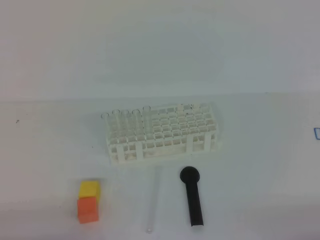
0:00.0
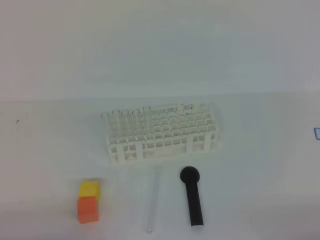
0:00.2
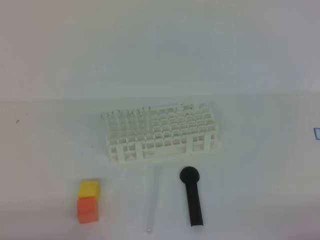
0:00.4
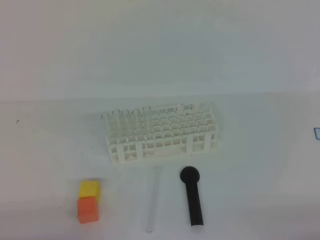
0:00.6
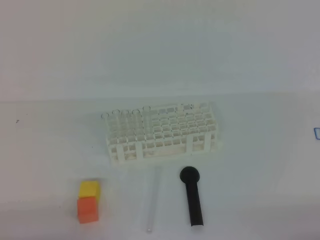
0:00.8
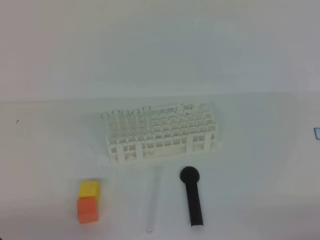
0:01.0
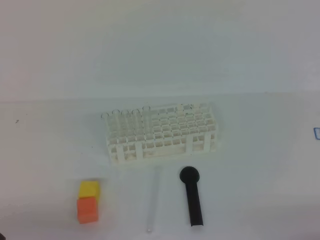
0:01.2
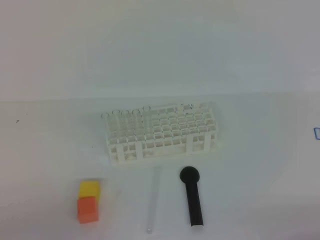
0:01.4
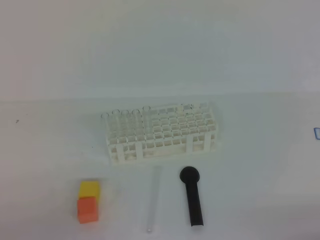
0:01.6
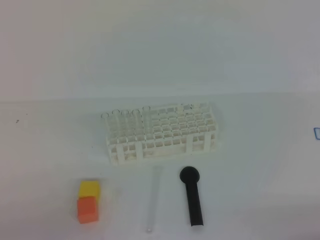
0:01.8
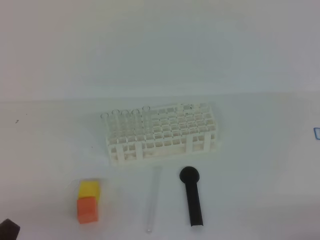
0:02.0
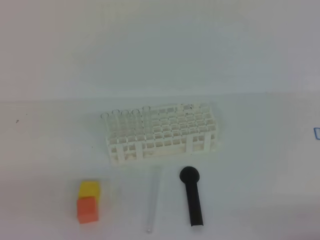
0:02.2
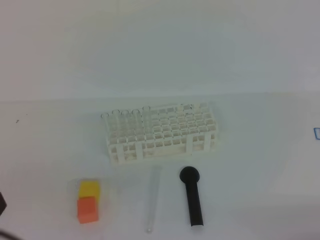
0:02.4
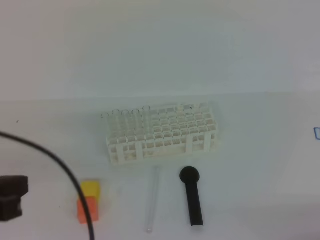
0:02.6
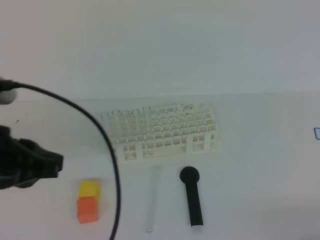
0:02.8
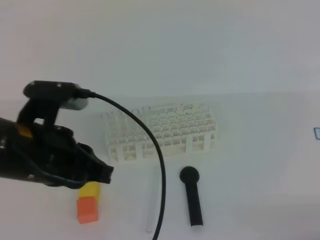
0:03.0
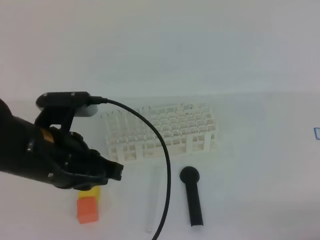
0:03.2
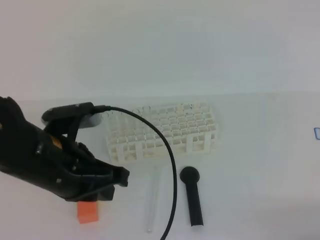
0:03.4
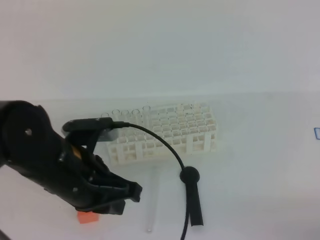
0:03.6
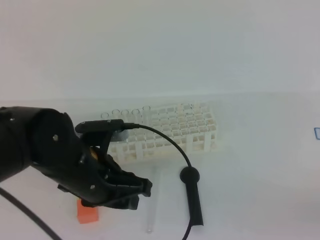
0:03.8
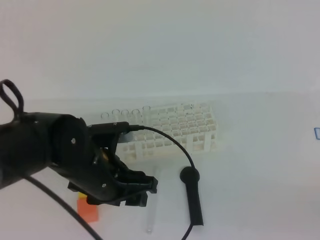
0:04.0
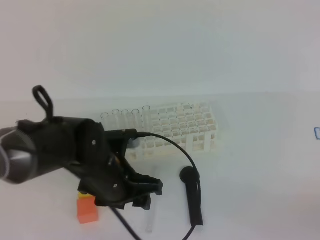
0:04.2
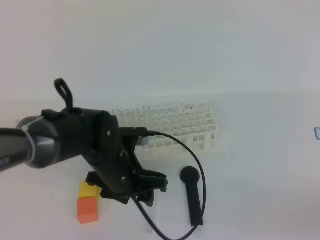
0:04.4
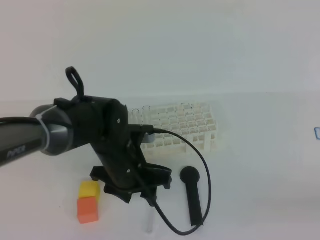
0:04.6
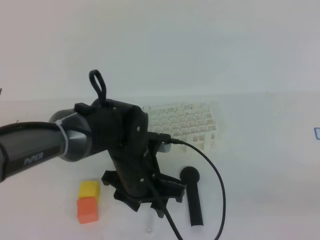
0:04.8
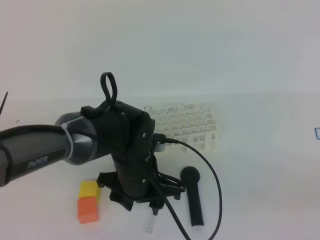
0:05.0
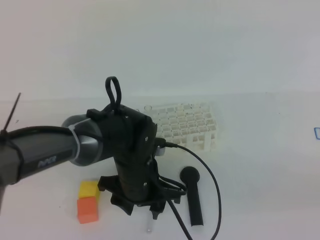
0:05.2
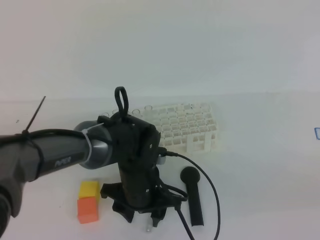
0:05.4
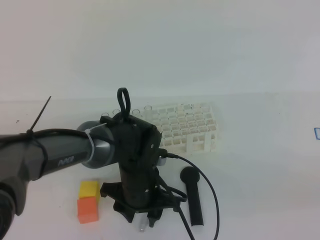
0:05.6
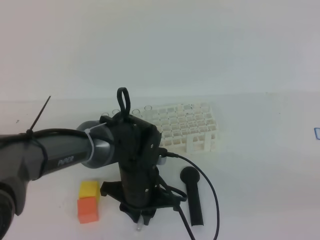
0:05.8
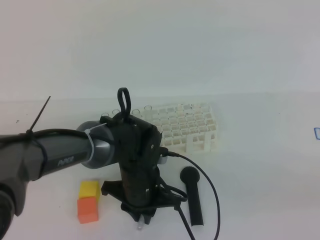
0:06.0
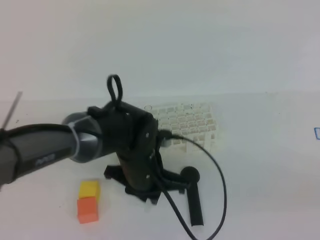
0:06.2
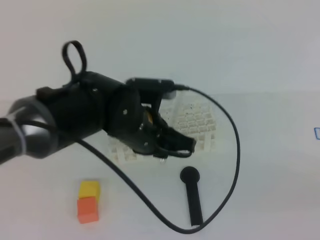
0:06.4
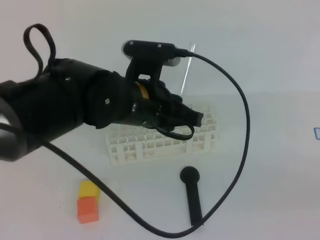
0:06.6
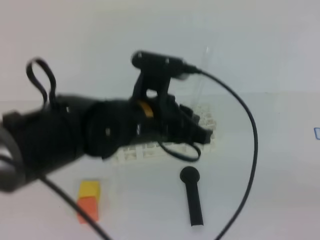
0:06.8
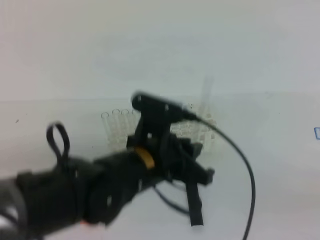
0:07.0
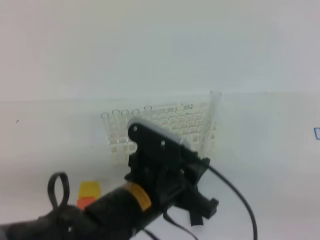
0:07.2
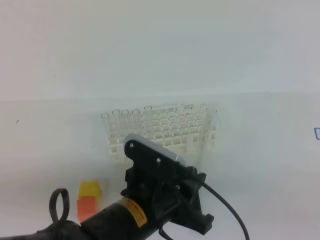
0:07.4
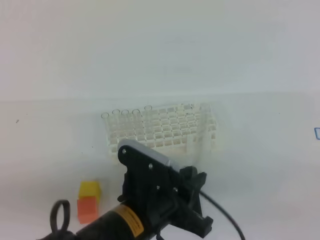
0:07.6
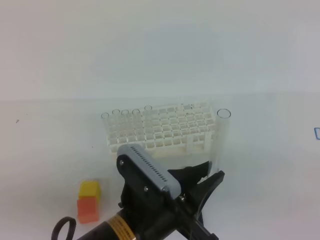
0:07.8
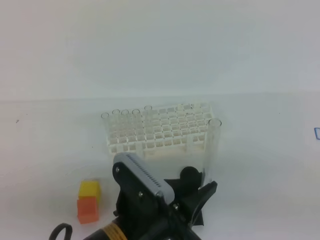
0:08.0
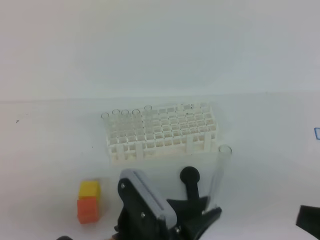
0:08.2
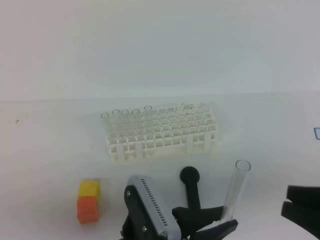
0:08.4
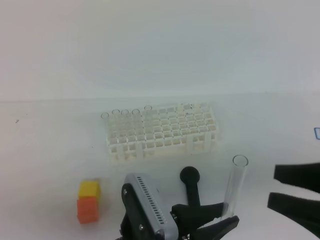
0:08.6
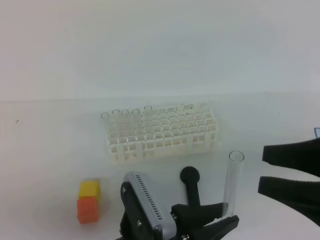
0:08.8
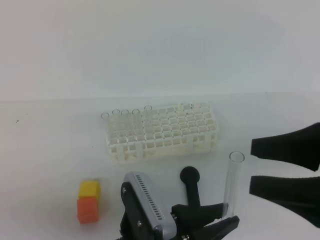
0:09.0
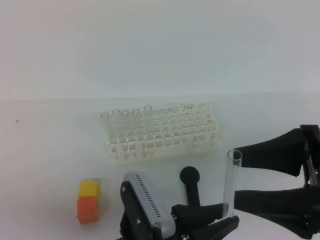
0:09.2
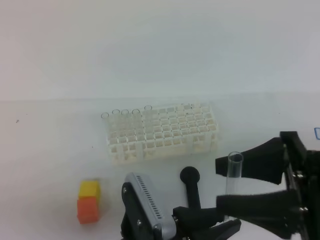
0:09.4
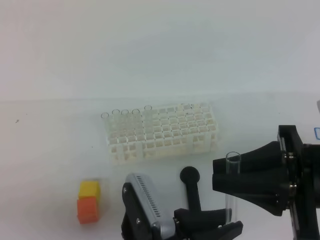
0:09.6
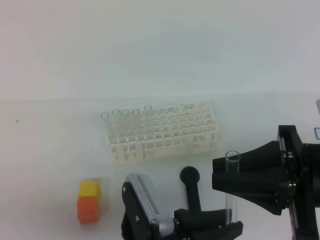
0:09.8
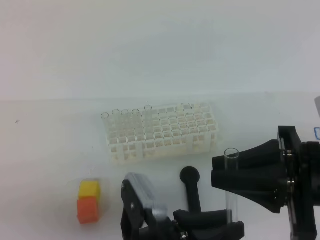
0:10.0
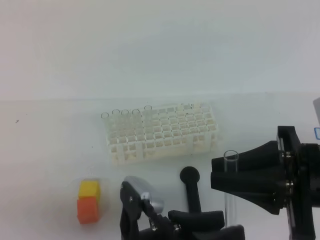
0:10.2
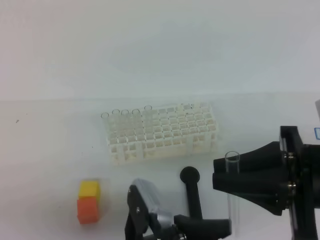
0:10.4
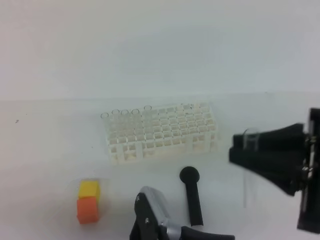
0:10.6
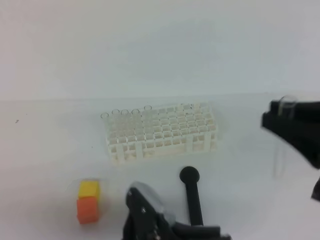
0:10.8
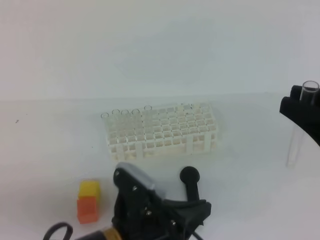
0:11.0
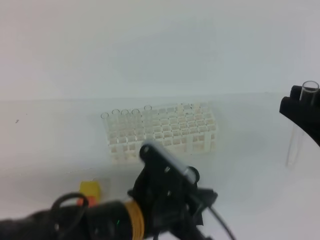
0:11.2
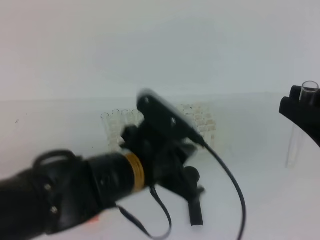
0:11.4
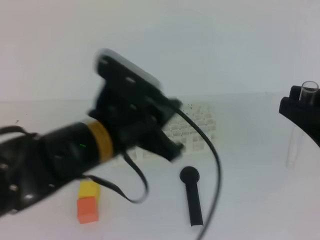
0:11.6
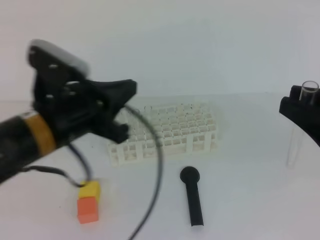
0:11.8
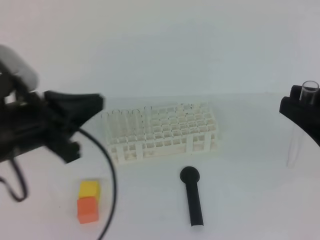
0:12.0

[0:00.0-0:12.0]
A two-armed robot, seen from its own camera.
0:01.6 to 0:03.0: The left gripper travels forward, upward and to the right by approximately 20 cm.
0:03.0 to 0:04.4: The left gripper travels downward, to the right and forward by approximately 20 cm, and opens its fingers.
0:04.4 to 0:06.0: The right gripper shifts some 5 cm upward; the left gripper ends up some 5 cm from where it was, and closes up.
0:06.0 to 0:07.6: The left gripper travels backward and upward by some 15 cm.
0:07.6 to 0:09.0: The left gripper travels backward by about 5 cm, while the right gripper moves forward and to the left, approximately 15 cm, and opens its fingers.
0:09.0 to 0:10.4: The right gripper closes its fingers. Meanwhile the left gripper opens its fingers.
0:10.4 to 0:12.0: The left gripper is displaced to the left, upward and forward by roughly 20 cm, and closes up, while the right gripper moves approximately 5 cm.

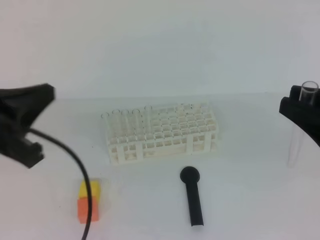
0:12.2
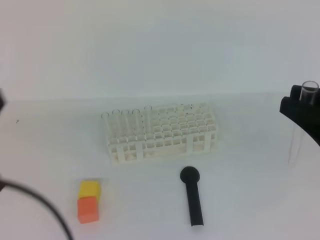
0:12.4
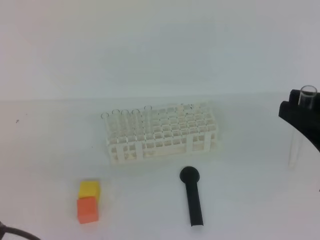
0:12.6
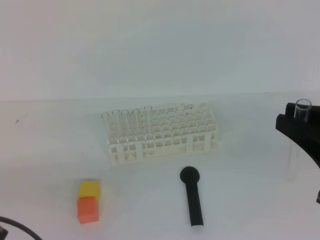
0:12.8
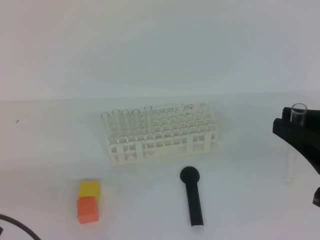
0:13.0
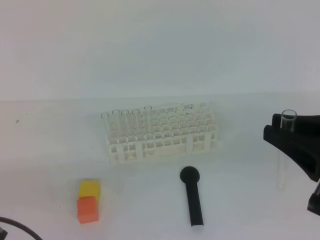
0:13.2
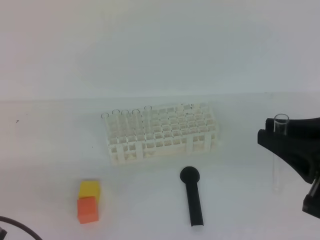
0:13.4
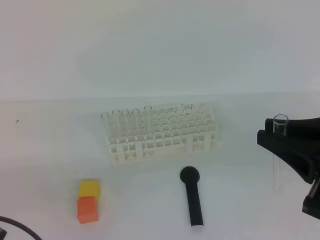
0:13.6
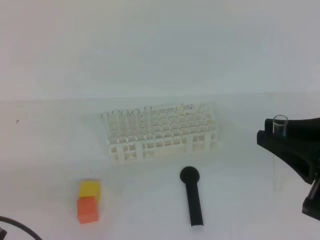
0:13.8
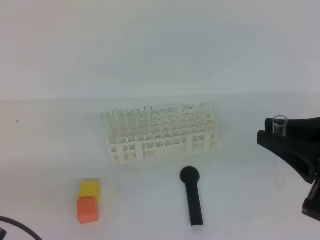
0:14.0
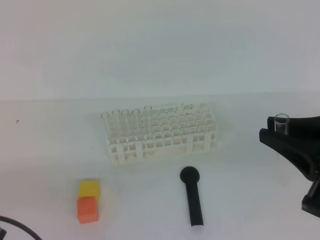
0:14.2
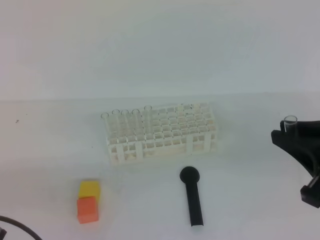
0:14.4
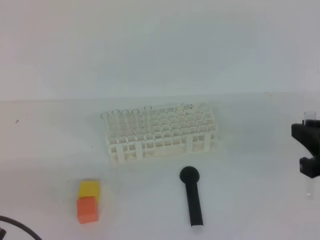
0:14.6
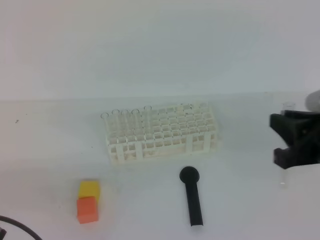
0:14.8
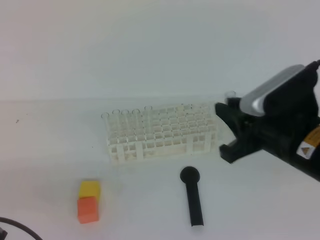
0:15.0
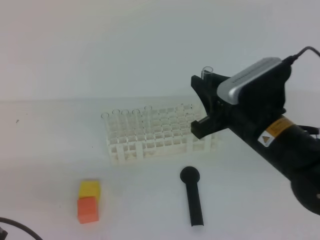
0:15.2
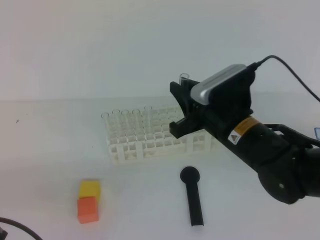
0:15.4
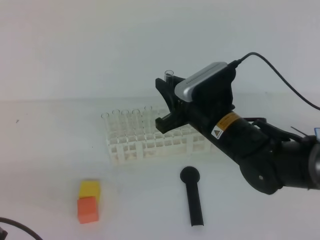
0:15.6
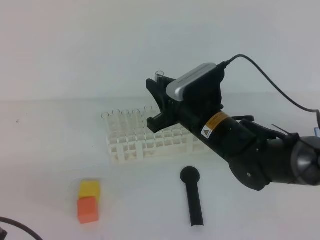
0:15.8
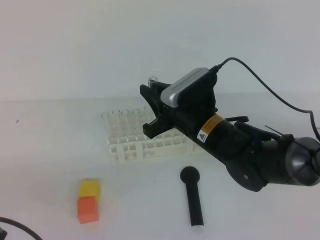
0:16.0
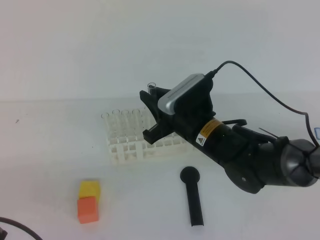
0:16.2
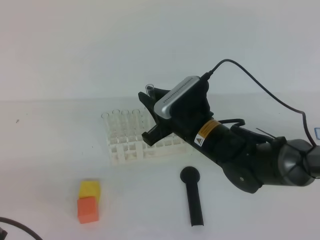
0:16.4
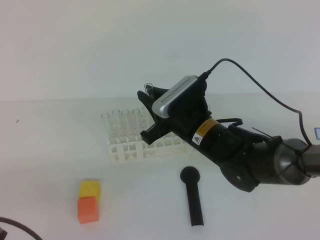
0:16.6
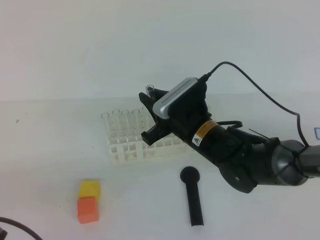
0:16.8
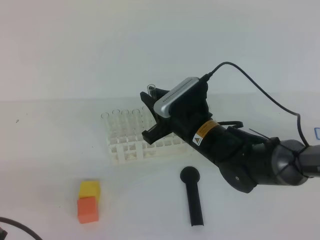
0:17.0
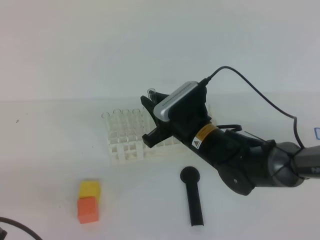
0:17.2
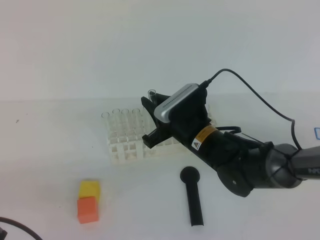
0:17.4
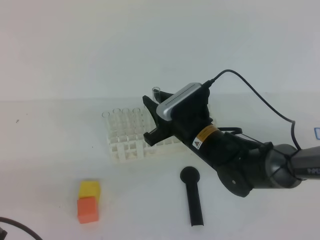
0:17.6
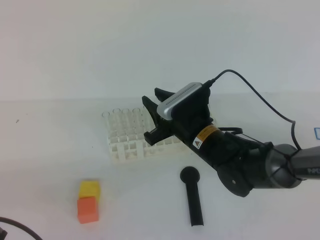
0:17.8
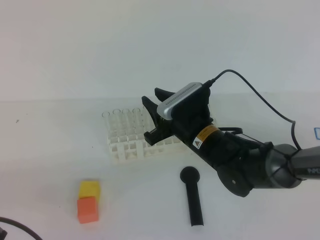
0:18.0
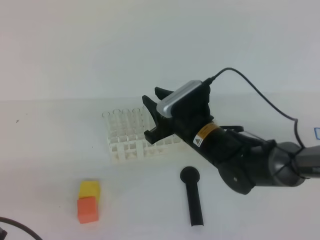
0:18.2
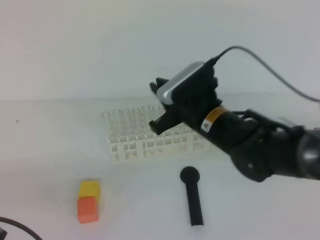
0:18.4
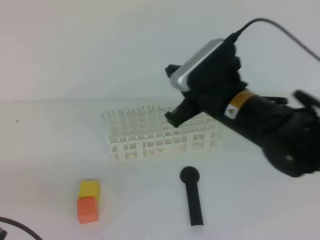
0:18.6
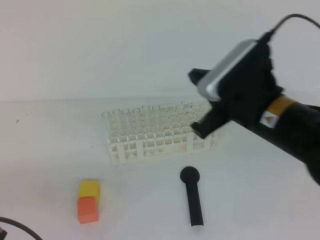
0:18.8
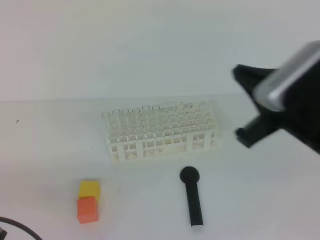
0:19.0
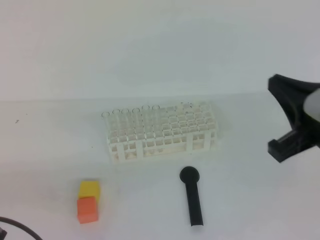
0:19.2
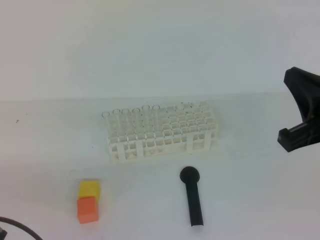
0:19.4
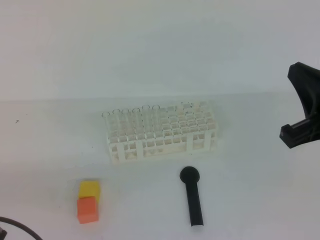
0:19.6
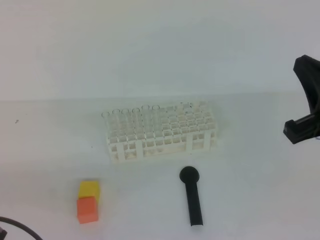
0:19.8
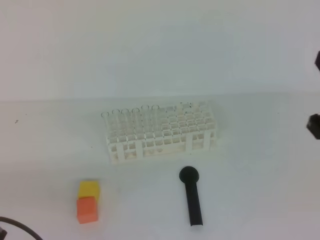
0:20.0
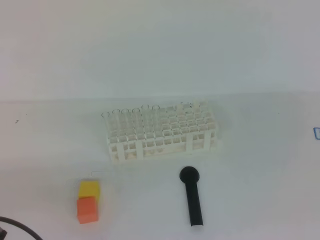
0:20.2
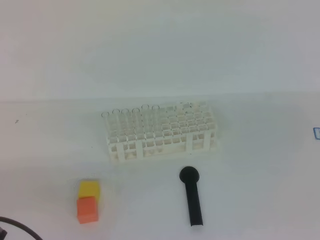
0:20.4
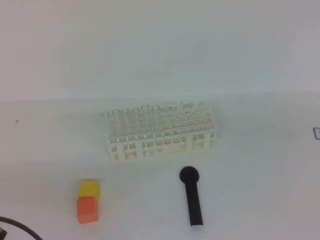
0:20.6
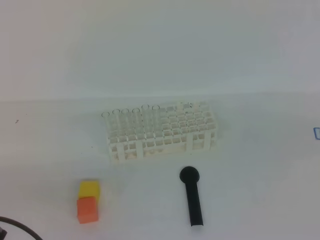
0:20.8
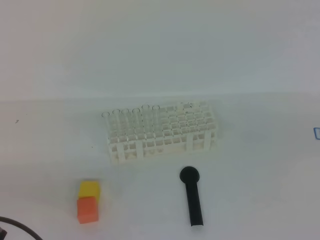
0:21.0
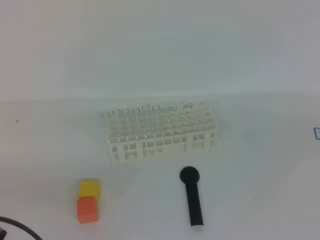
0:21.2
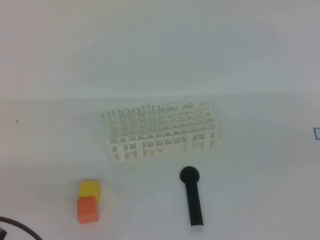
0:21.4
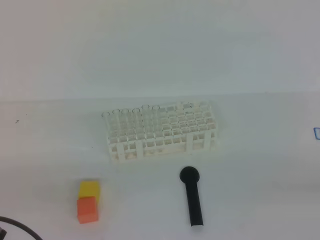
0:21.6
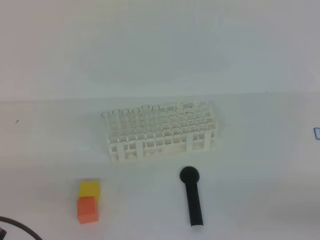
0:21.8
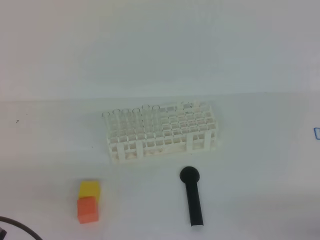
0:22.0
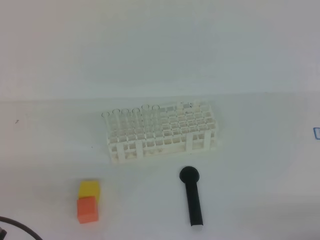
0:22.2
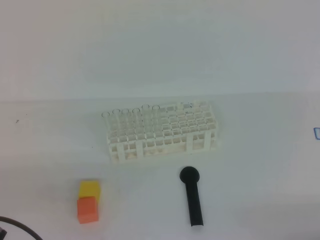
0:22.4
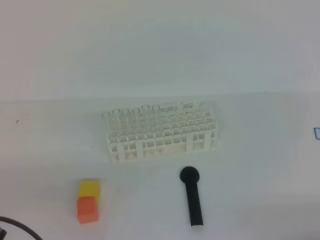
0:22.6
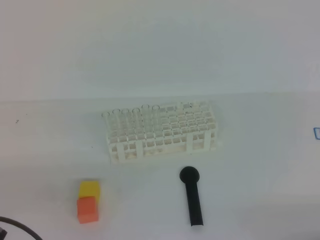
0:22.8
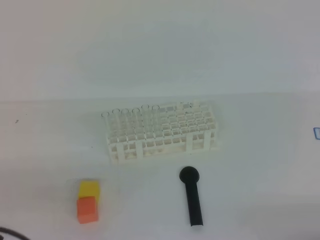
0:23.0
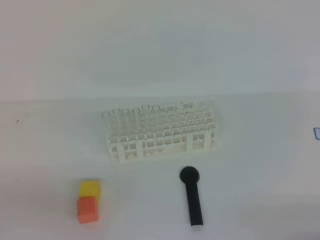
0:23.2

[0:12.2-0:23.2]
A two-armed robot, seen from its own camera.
0:12.2 to 0:13.8: The left gripper moves downward and backward, roughly 15 cm.
0:13.8 to 0:15.4: The right gripper is displaced forward, to the left and downward by roughly 20 cm.
0:15.4 to 0:17.0: The right gripper travels downward and to the left by approximately 10 cm.
0:17.0 to 0:18.4: The right gripper opens, then closes again.
0:18.4 to 0:20.0: The right gripper heads to the right, backward and upward, covering some 25 cm, and closes up.
